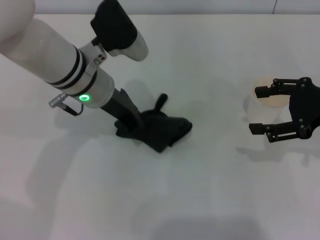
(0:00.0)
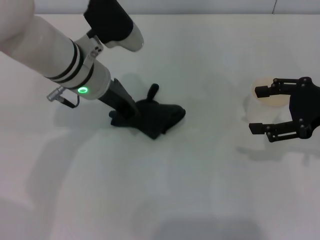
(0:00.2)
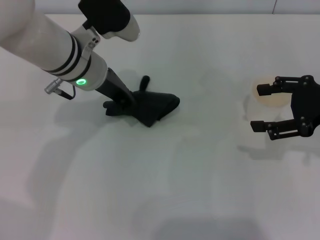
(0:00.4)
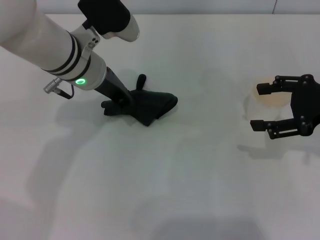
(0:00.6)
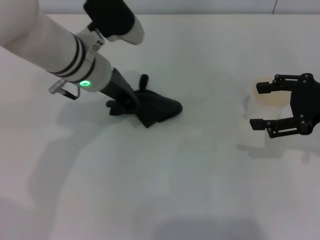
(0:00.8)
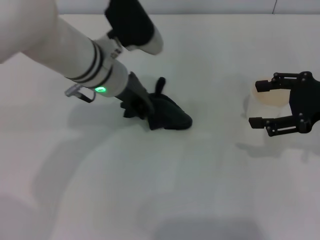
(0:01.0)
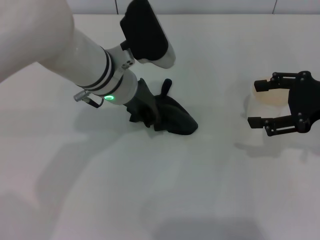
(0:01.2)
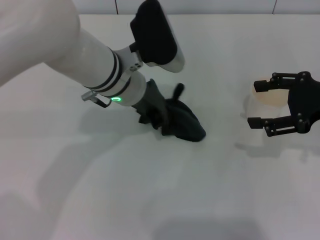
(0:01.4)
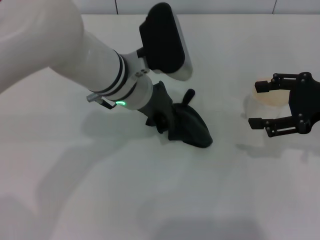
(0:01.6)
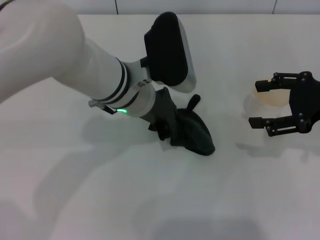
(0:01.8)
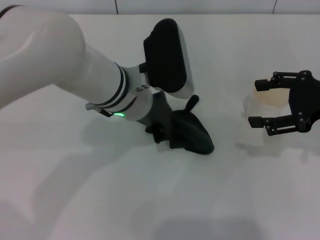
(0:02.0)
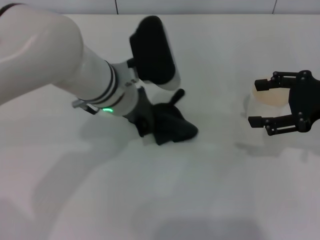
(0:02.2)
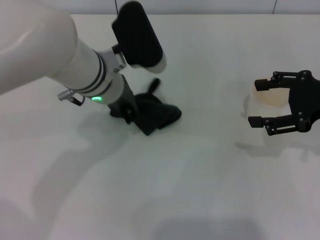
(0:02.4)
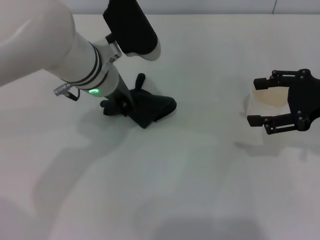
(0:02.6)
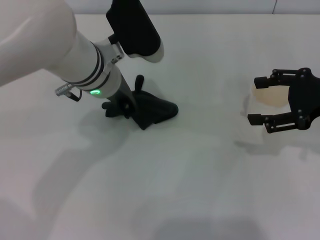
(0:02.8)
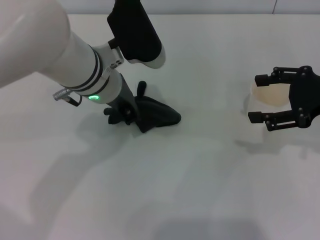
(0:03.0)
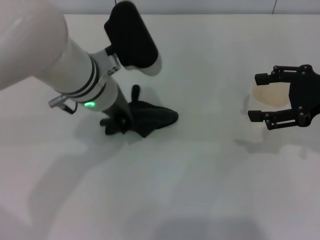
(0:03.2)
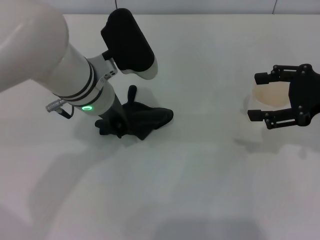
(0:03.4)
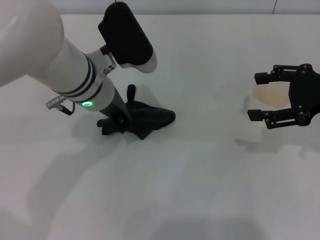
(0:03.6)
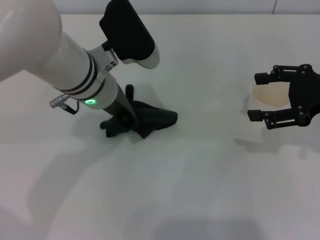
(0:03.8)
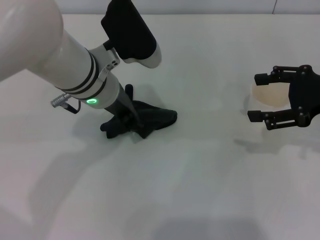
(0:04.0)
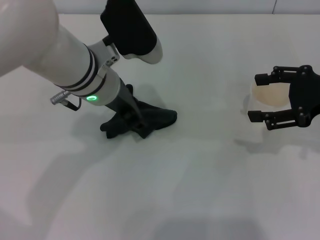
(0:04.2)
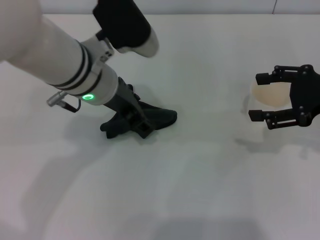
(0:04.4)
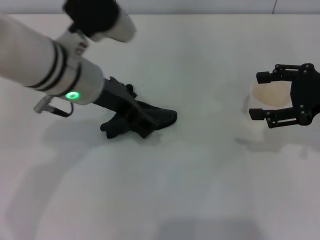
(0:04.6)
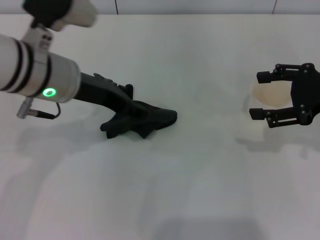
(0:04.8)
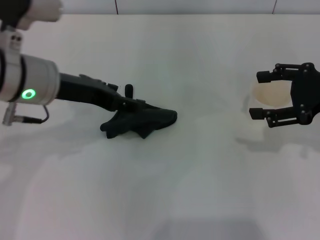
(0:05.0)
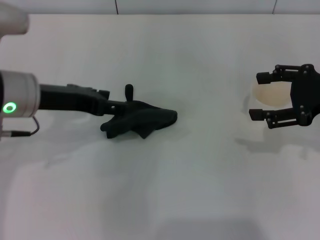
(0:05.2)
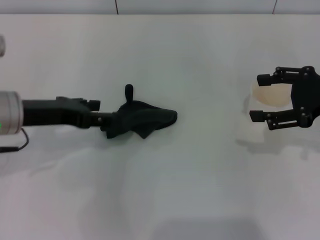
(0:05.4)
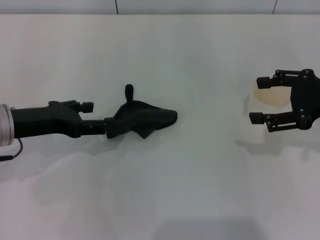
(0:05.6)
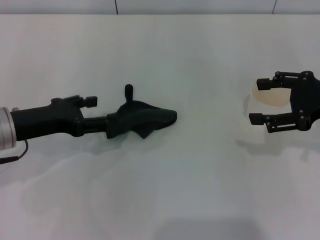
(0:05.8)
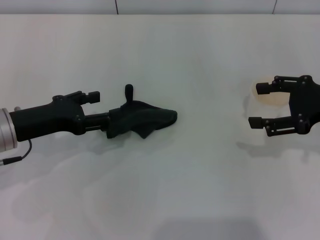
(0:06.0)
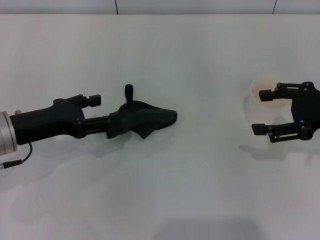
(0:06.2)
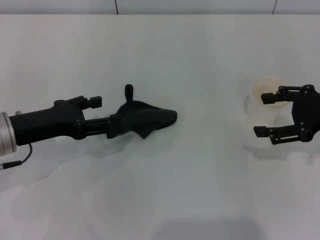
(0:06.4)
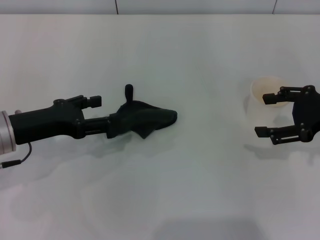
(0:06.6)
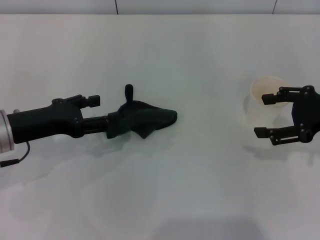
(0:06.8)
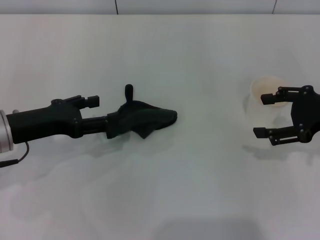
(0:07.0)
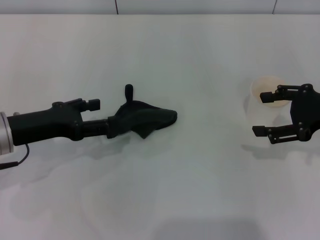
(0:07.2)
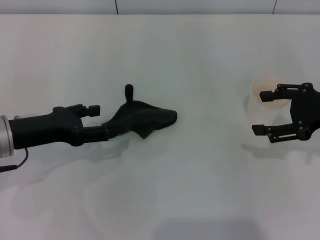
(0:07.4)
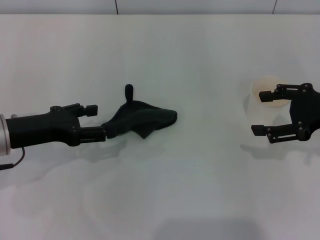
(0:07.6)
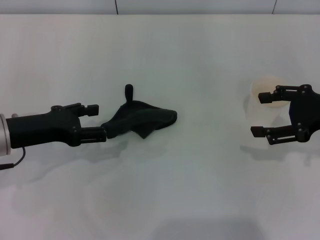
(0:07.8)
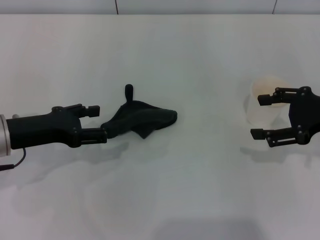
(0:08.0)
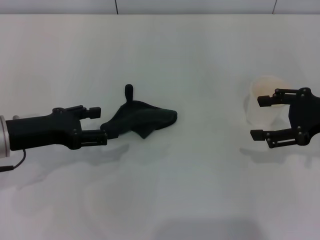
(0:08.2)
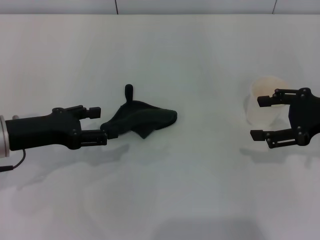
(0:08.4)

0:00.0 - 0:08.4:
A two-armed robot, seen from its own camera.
Step, 0:00.0 - 0:03.8: Wipe the stains off the table with the left gripper.
Step, 0:04.0 - 0:05.4: Place the rag on the table with the left gripper.
0:01.4 - 0:04.2: The grippers stay close to where they were, moving slightly.
0:04.2 - 0:05.6: The left gripper goes some 15 cm to the left, and opens its fingers.
0:05.6 - 0:08.4: The grippers make only small movements.

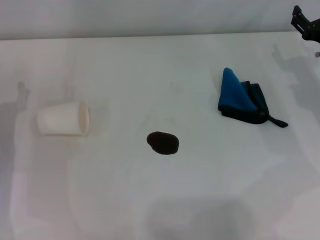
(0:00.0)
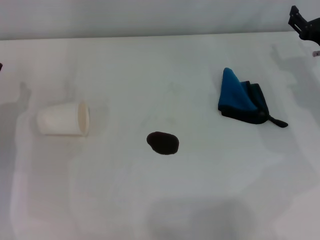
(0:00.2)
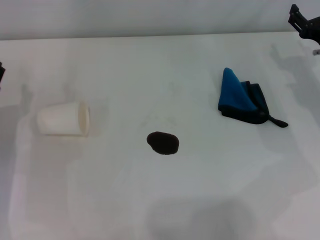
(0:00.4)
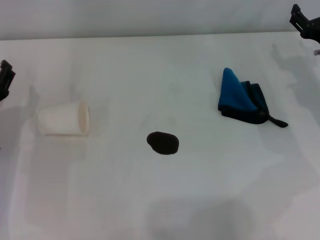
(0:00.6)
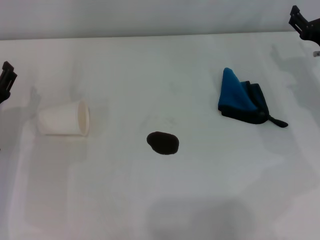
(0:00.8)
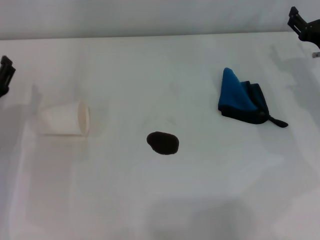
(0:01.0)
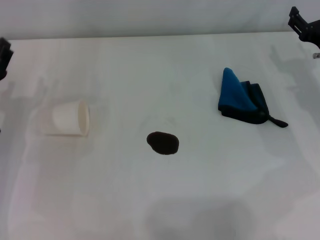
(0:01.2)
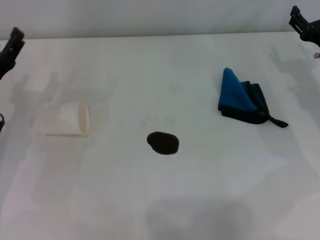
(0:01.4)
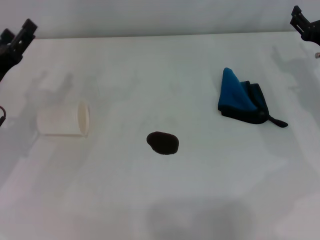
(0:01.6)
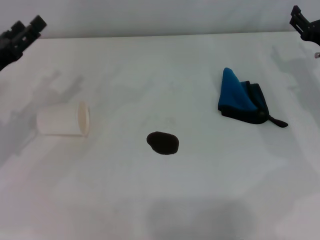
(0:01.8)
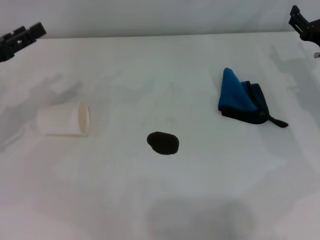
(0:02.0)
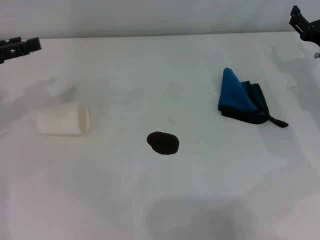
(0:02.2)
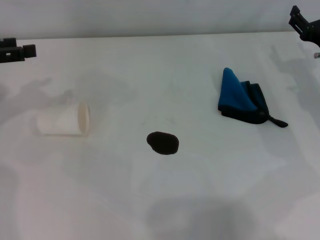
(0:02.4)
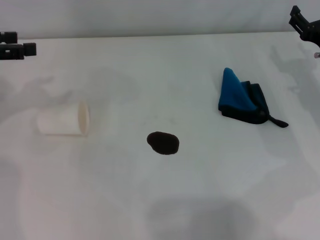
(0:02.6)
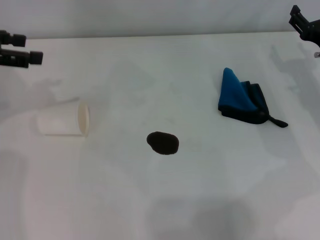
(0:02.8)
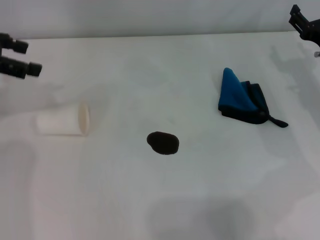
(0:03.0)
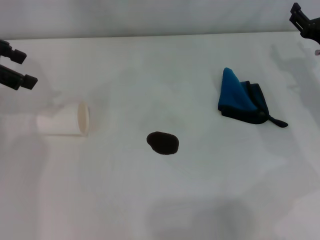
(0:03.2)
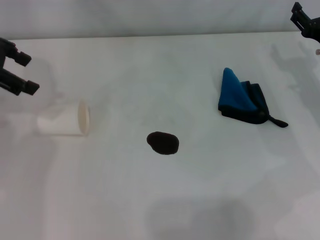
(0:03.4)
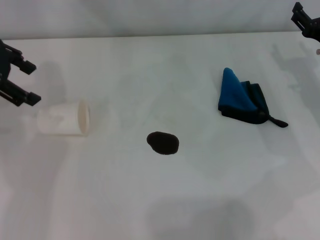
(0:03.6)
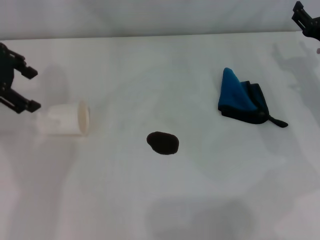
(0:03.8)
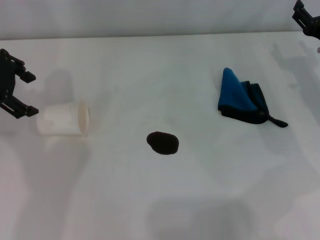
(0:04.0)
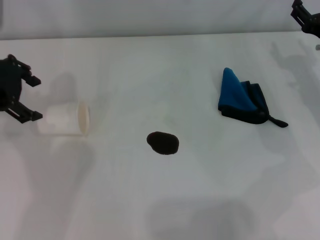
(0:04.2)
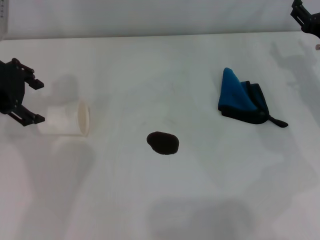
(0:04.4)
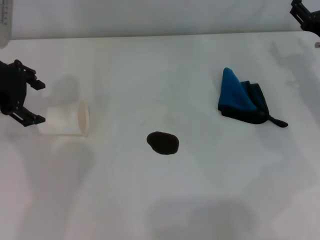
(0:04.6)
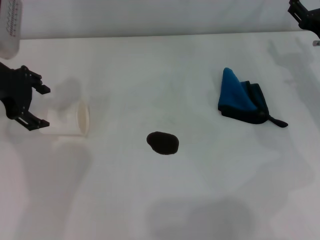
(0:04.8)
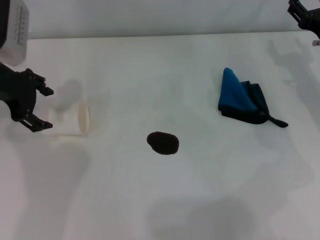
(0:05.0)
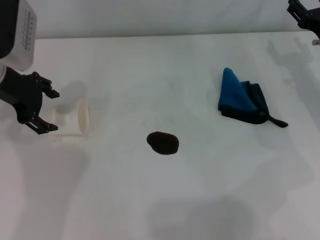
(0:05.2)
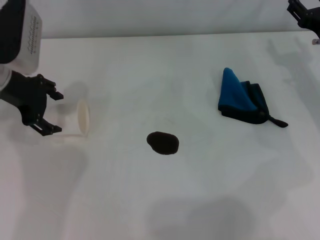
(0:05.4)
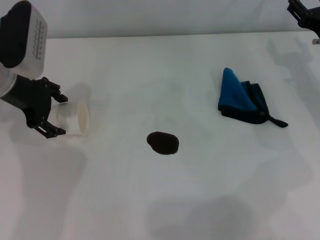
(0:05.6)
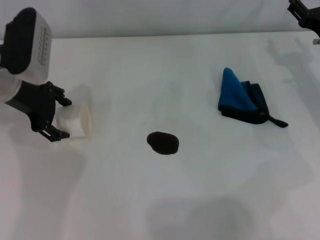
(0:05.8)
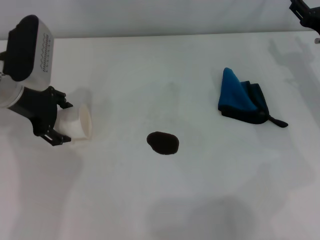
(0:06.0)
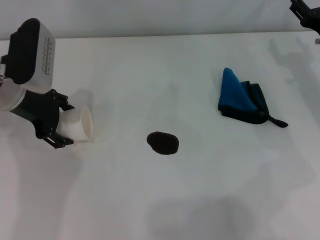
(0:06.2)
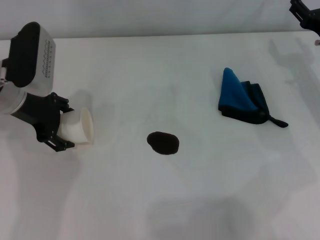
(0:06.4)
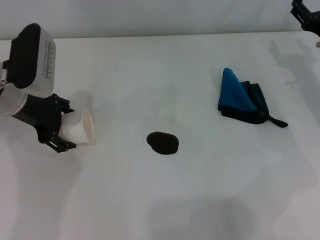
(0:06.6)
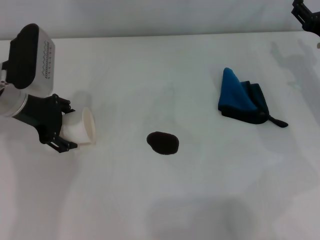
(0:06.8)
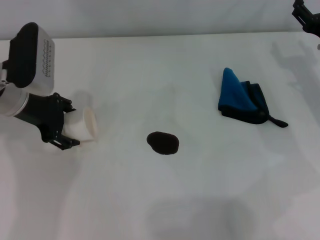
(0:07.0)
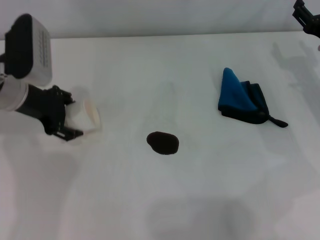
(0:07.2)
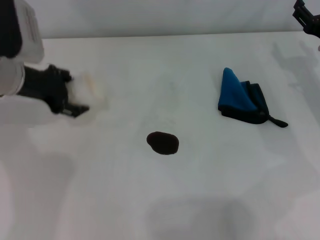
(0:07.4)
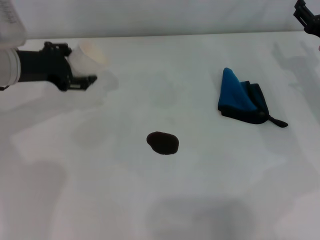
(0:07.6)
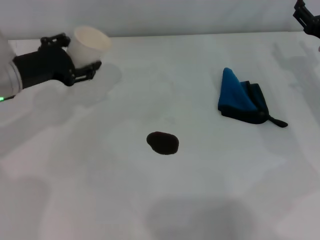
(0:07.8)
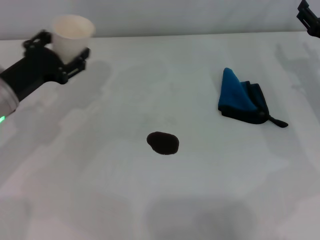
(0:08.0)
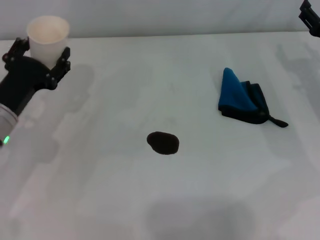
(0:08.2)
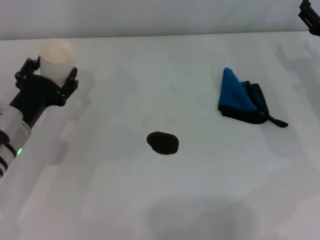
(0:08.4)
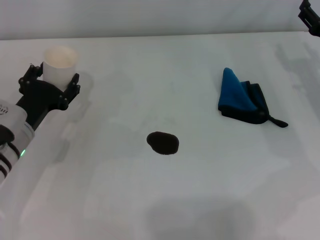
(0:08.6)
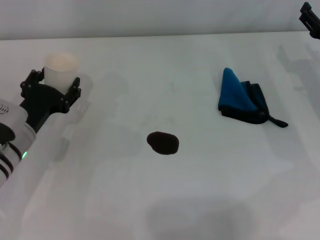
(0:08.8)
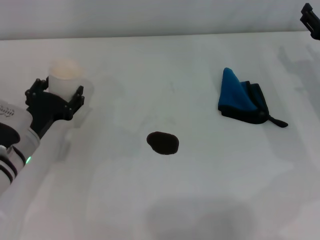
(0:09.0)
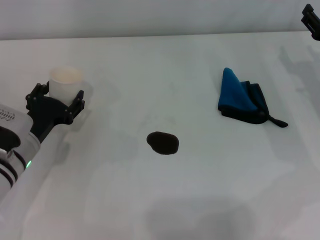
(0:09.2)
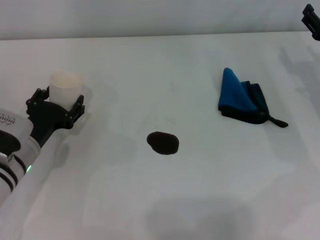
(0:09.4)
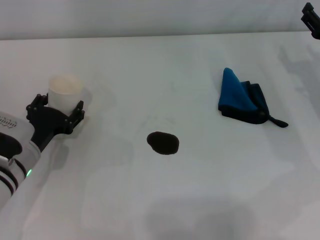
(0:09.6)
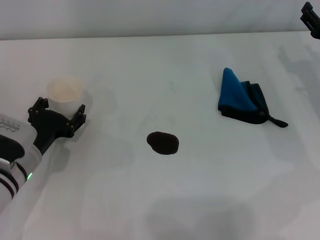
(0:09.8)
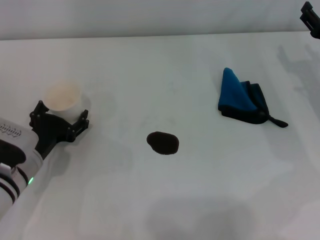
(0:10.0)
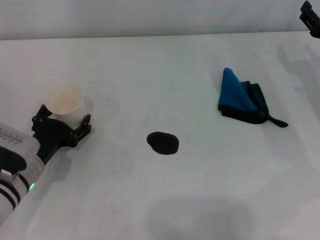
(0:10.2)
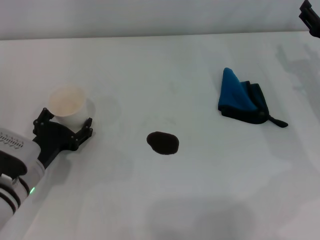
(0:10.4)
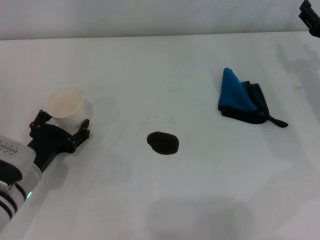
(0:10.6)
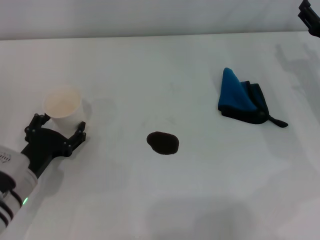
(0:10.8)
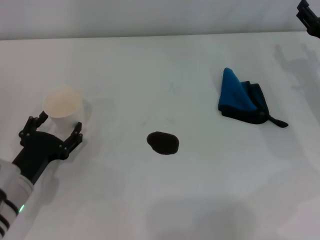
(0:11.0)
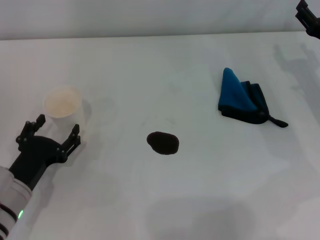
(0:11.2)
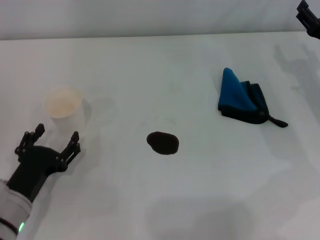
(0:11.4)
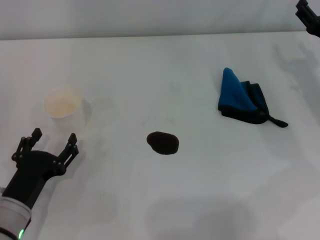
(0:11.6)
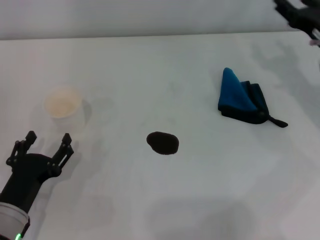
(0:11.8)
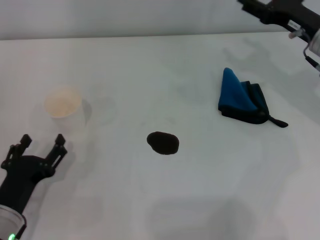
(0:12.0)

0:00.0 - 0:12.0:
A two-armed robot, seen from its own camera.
Step, 0:00.0 - 0:06.0: Grasp the paper cup with the left gripper.
Step, 0:06.2 - 0:10.6: Stand the paper cup upright with the left gripper.
0:01.6 - 0:03.0: The left gripper travels upward and forward by about 20 cm.
0:03.0 - 0:04.4: The left gripper heads to the right, covering about 5 cm.
0:04.4 - 0:06.0: The left gripper moves downward, about 10 cm.
0:07.6 - 0:09.0: The left gripper moves downward and backward, approximately 15 cm.
0:09.0 - 0:10.4: The grippers make only small movements.
0:10.4 - 0:12.0: The right gripper is displaced upward by about 5 cm; the left gripper is displaced backward by about 10 cm.

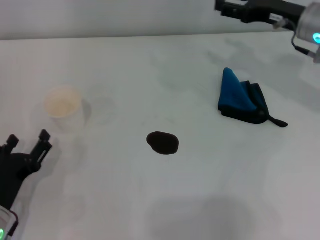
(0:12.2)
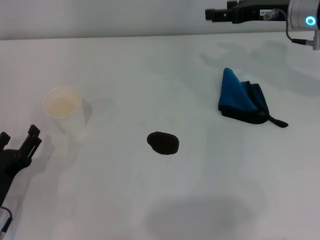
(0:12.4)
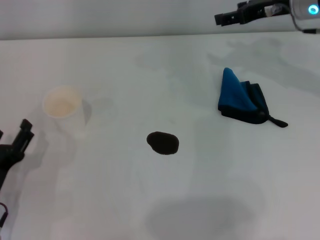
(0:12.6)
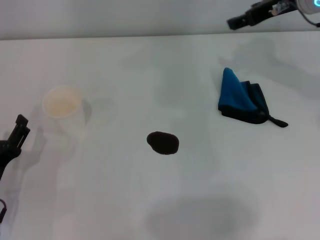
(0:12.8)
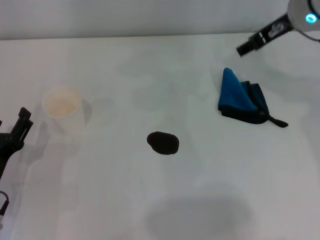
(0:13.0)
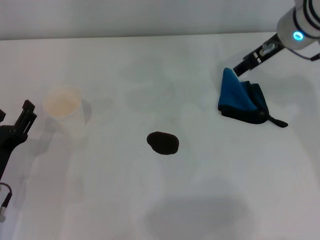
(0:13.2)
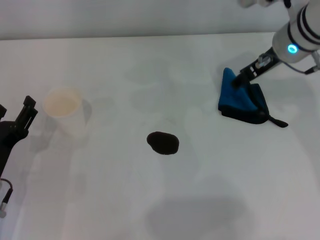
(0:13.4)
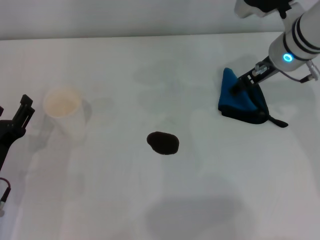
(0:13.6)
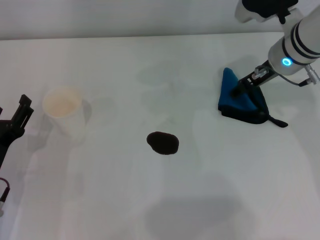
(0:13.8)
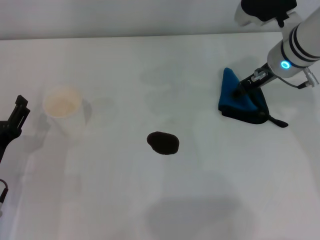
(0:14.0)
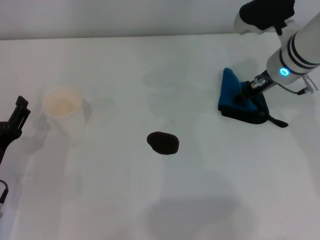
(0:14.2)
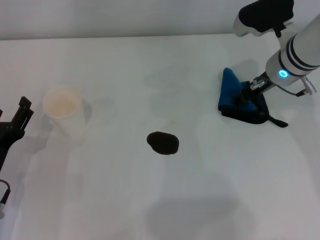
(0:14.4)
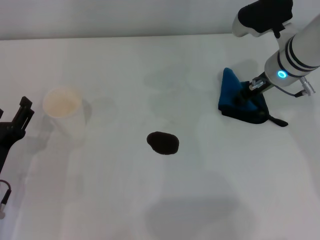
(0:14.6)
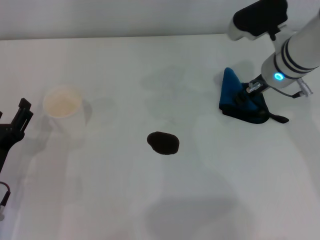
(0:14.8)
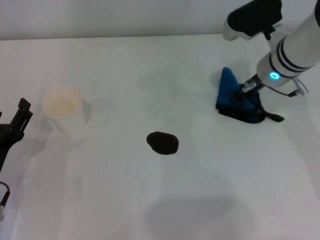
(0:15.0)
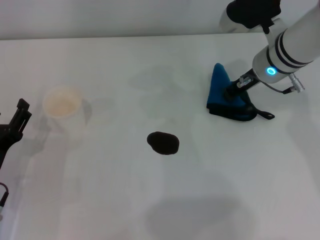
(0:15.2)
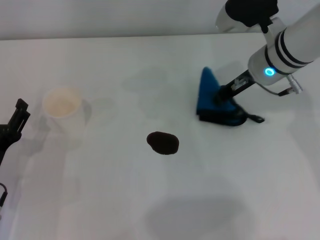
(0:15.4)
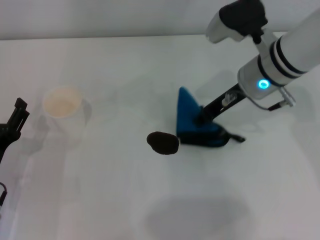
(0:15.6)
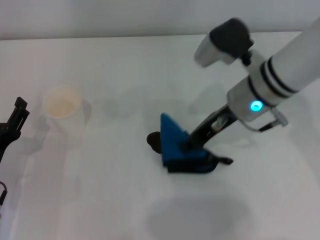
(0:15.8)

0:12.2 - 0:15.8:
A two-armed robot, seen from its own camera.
Step, 0:12.2 - 0:14.6: Grasp the rag with the right gripper.
0:12.2 - 0:14.0: The right gripper shifts roughly 5 cm to the left, and goes upward and returns, about 5 cm each way.
0:14.0 - 0:15.8: The right gripper shifts approximately 10 cm to the left and backward, and closes up.
